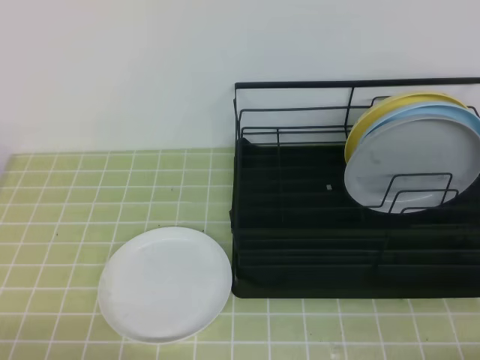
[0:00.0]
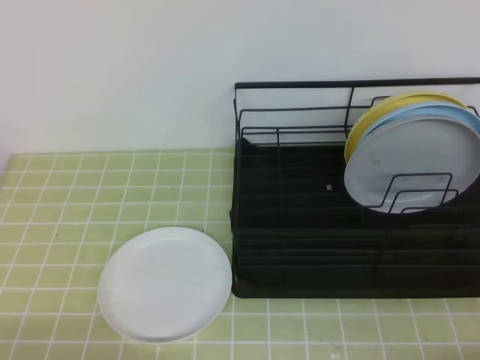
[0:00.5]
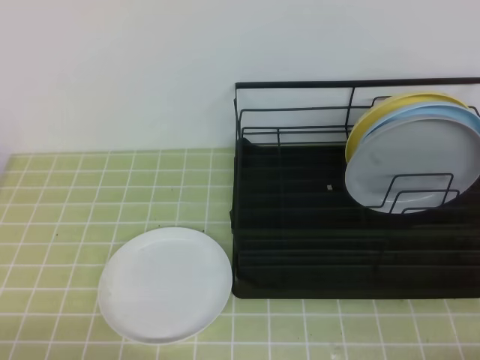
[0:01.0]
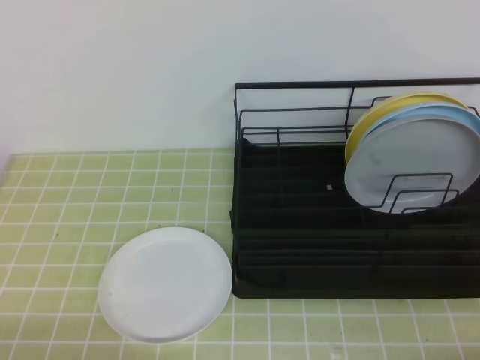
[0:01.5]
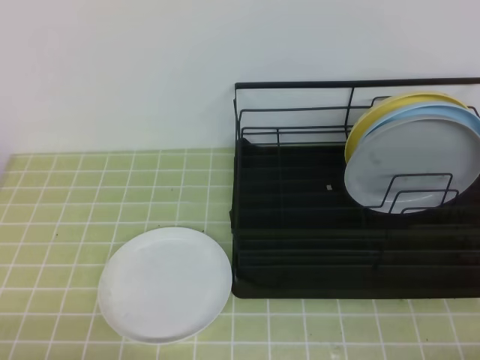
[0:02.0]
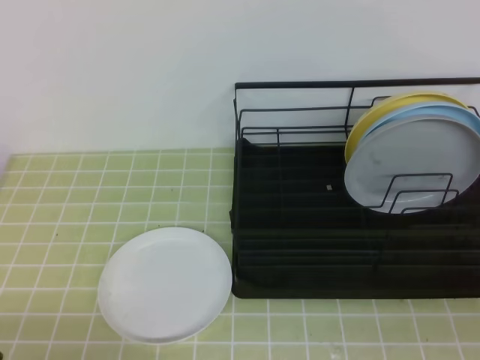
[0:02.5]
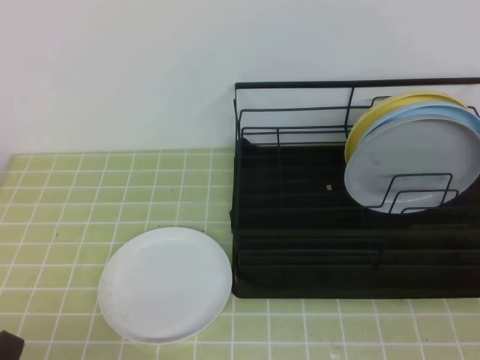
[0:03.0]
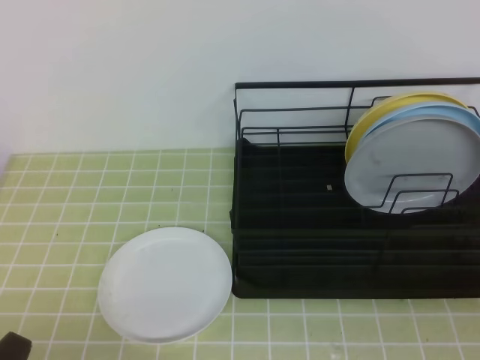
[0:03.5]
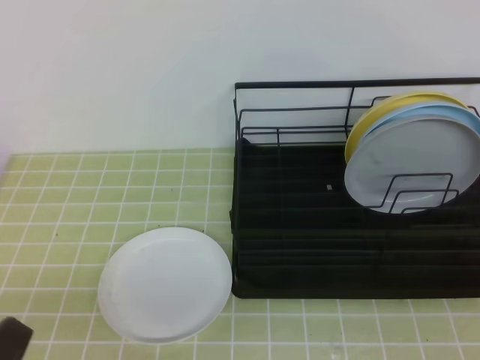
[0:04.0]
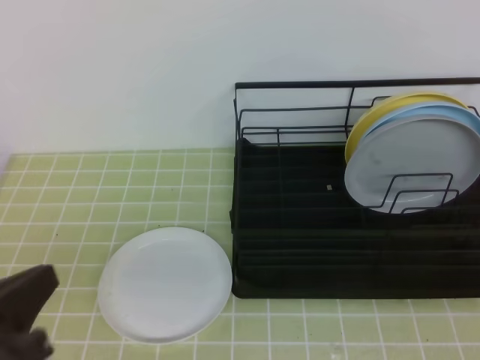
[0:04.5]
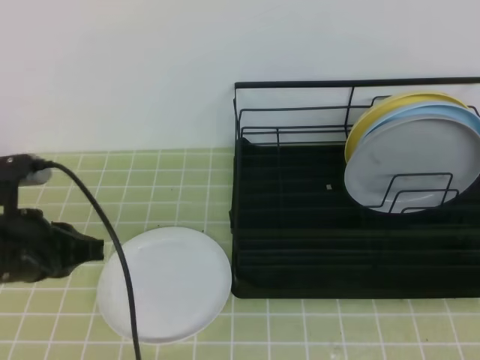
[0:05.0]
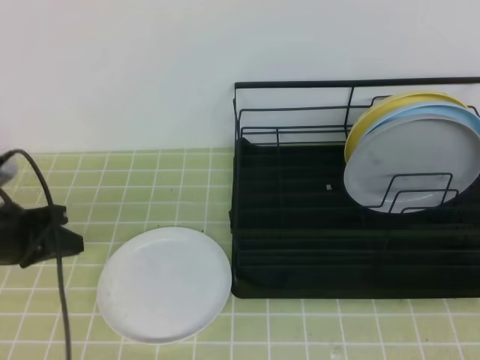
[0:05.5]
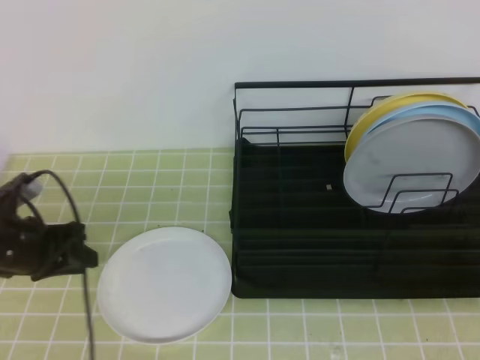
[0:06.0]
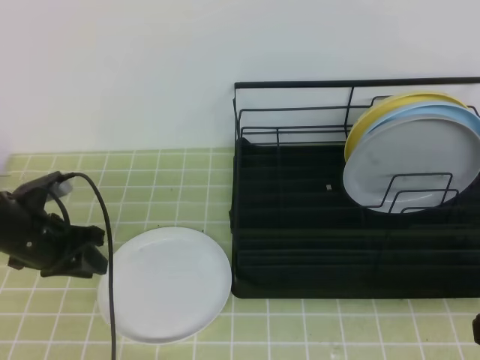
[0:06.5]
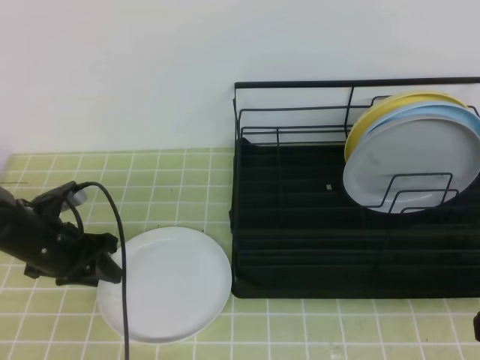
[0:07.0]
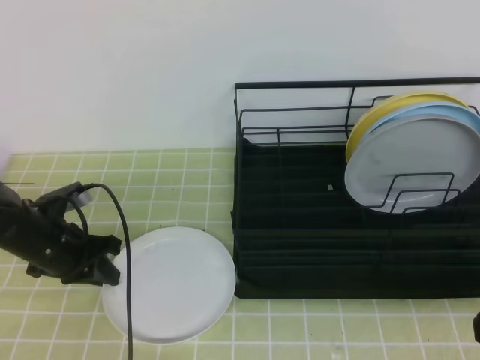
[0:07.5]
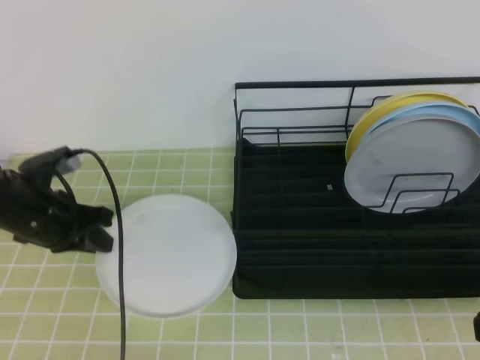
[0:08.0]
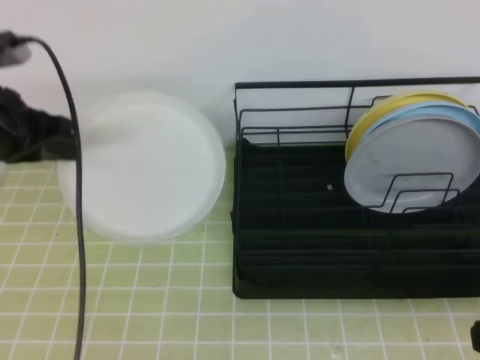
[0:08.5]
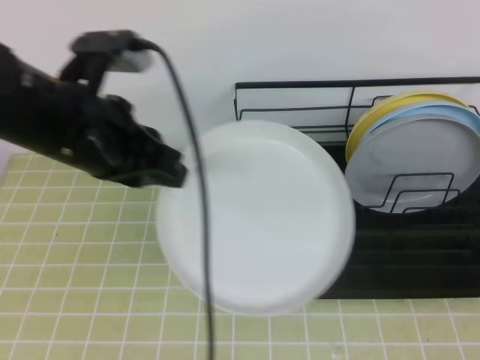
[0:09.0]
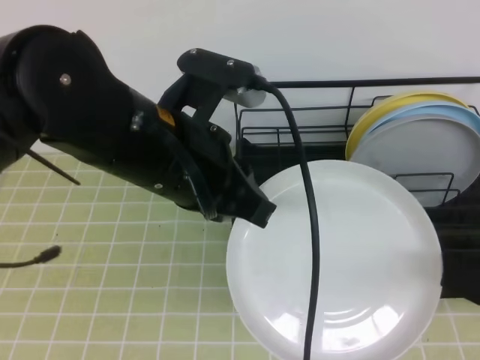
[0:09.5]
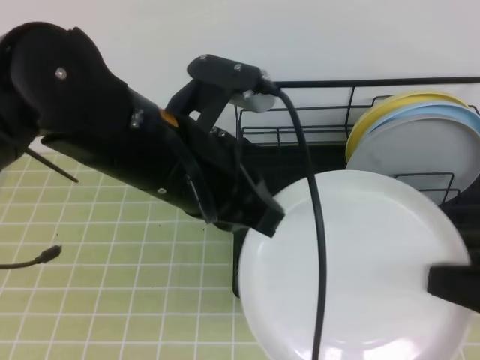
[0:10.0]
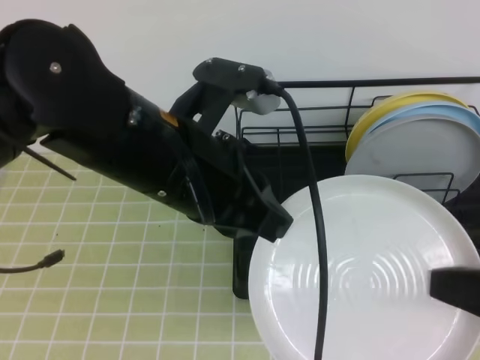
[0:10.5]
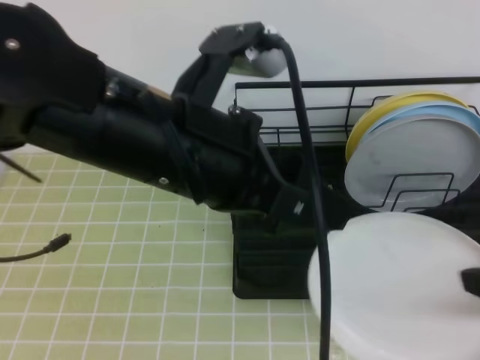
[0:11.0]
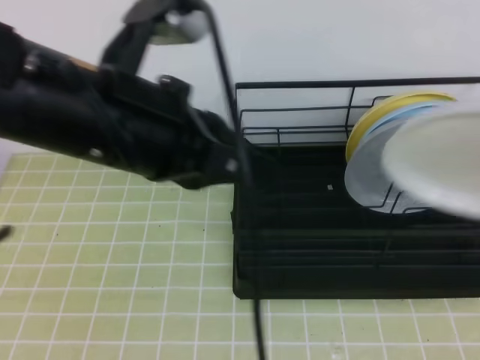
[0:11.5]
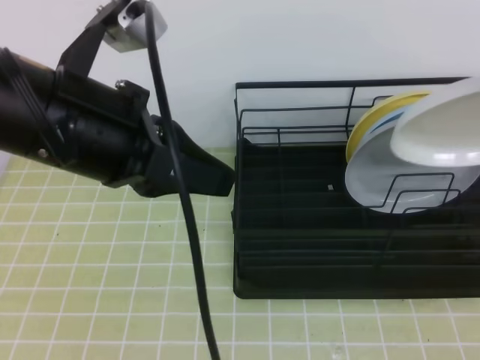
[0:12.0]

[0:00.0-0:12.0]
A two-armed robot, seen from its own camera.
0:02.0 to 0:04.0: The left gripper goes roughly 5 cm upward.
0:04.0 to 0:06.0: The left gripper is displaced forward by some 30 cm, and opens up. The right gripper goes roughly 10 cm forward.
0:06.0 to 0:08.0: The left gripper ends up about 5 cm from where it was, and closes up.
0:08.0 to 0:10.0: The left gripper is displaced to the right, upward and backward by about 25 cm, while the right gripper opens.
0:10.0 to 0:12.0: The left gripper shifts some 5 cm to the left, and opens and closes again. Meanwhile the right gripper is displaced upward and forward by roughly 15 cm, and closes its fingers.

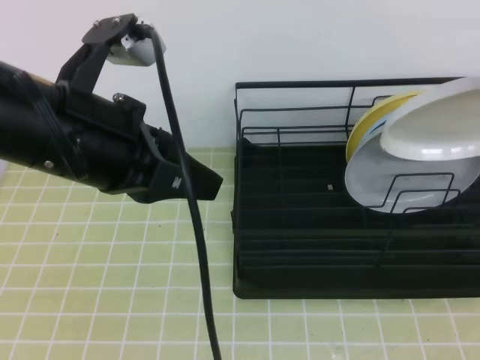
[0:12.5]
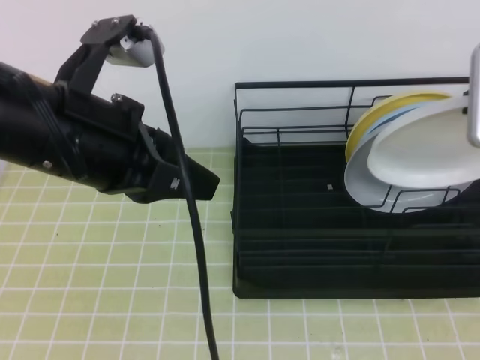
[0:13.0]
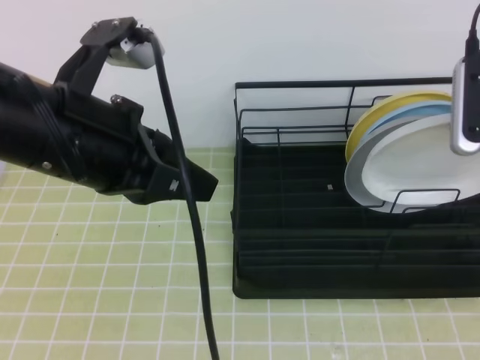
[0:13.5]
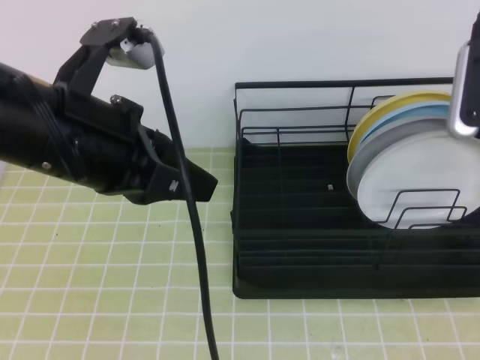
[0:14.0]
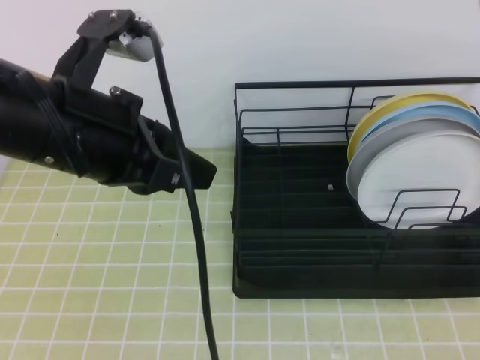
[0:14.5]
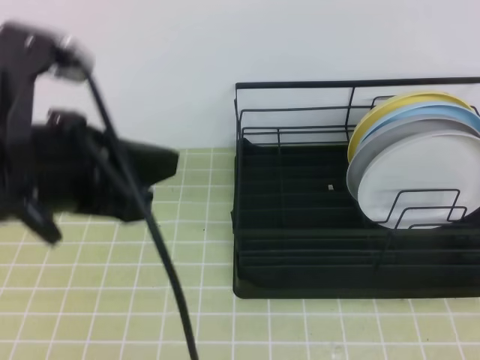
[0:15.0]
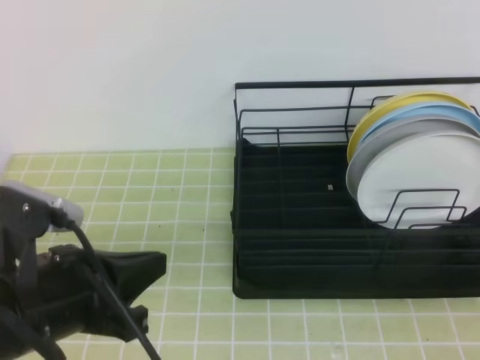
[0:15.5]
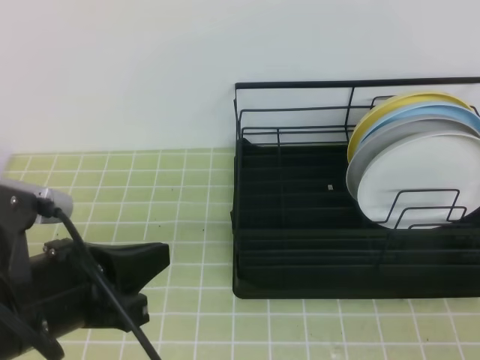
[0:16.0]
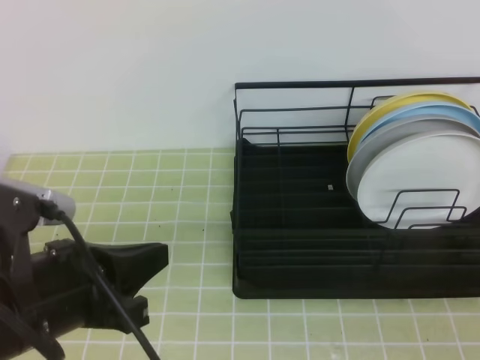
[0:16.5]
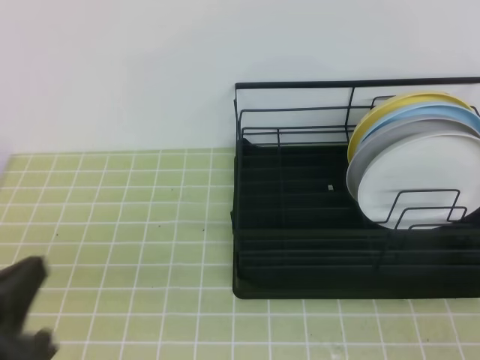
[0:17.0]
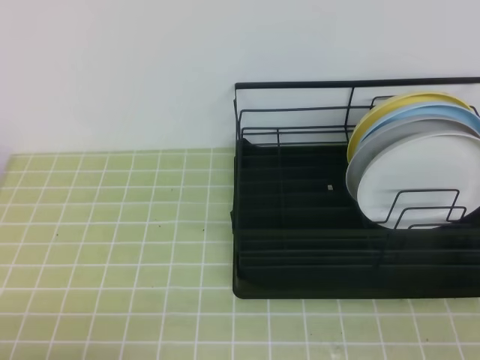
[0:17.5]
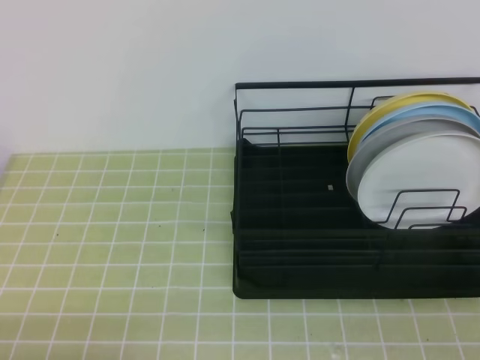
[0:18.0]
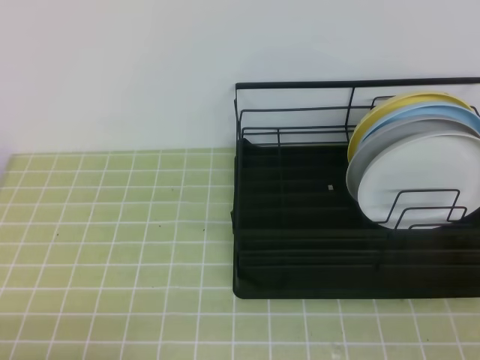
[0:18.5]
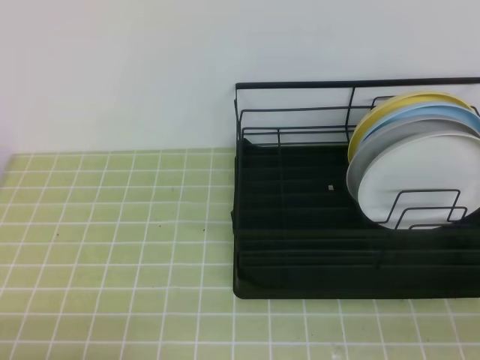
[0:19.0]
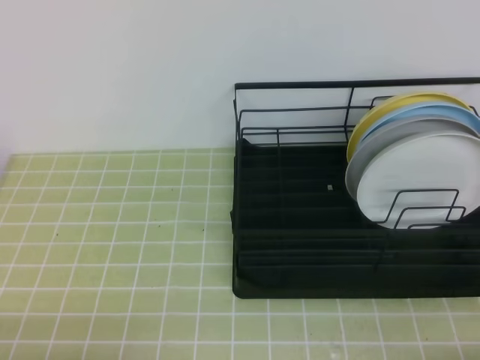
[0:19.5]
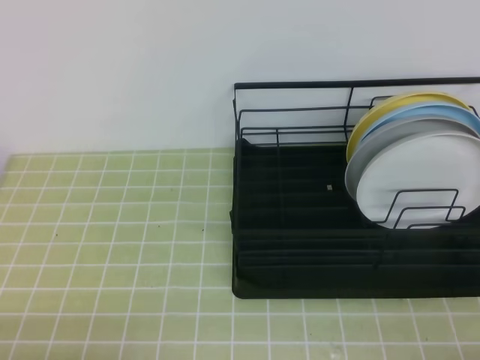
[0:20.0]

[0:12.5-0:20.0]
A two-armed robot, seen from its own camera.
0:12.5 to 0:14.5: The right gripper moves upward, about 5 cm, and opens, then closes again.
0:14.5 to 0:16.5: The left gripper goes roughly 15 cm downward and backward; the right gripper is displaced downward and backward by some 30 cm.
0:16.5 to 0:18.0: The left gripper goes some 15 cm backward, downward and to the left.
